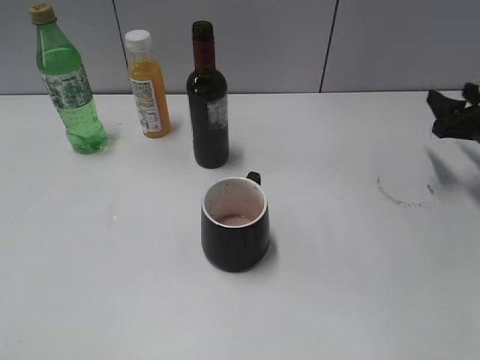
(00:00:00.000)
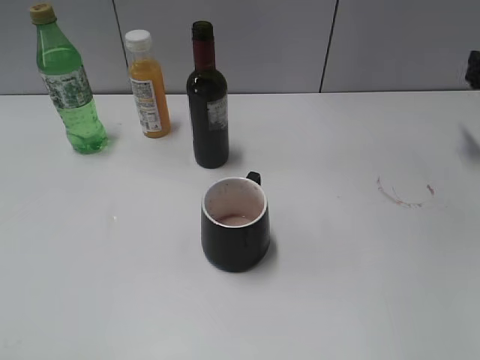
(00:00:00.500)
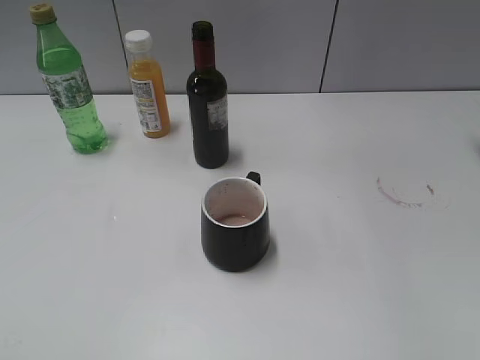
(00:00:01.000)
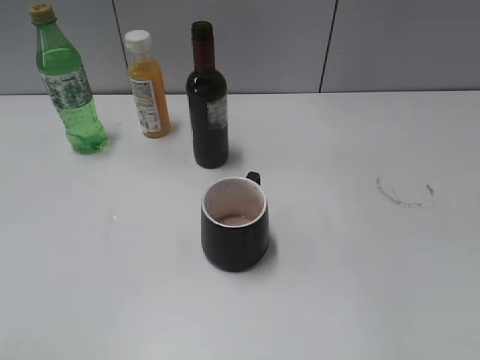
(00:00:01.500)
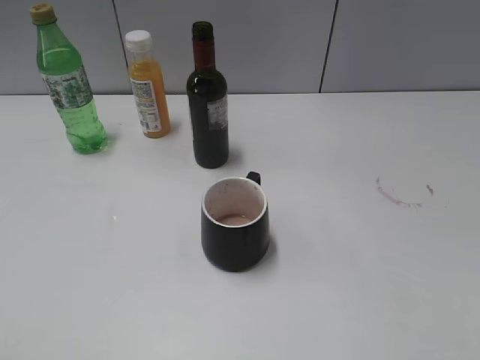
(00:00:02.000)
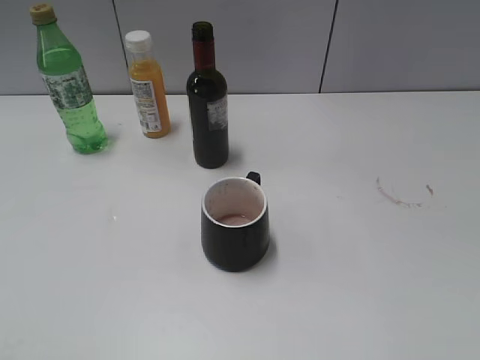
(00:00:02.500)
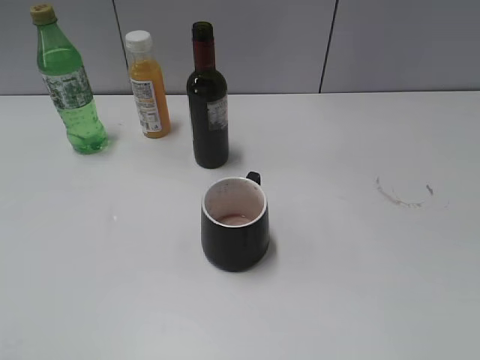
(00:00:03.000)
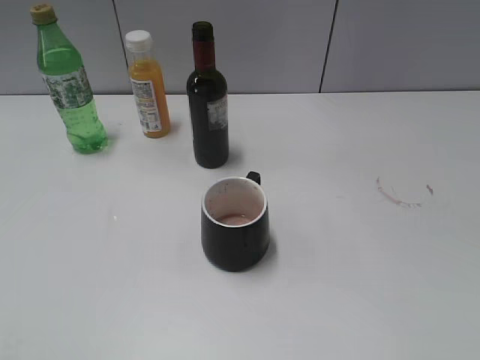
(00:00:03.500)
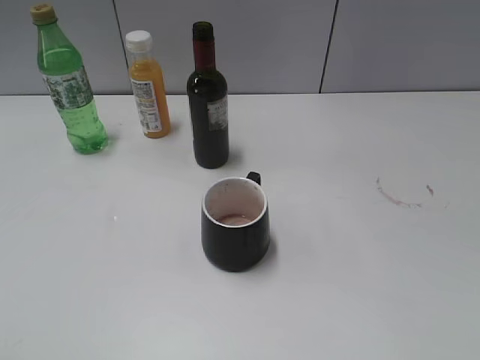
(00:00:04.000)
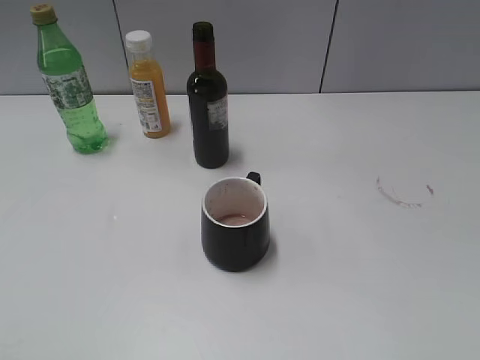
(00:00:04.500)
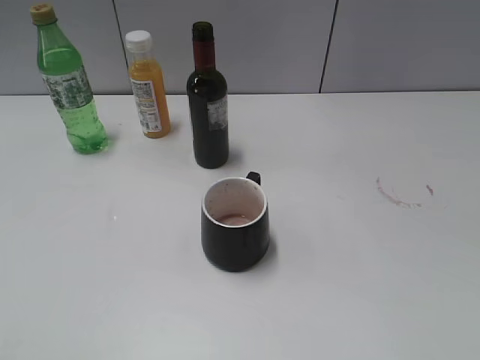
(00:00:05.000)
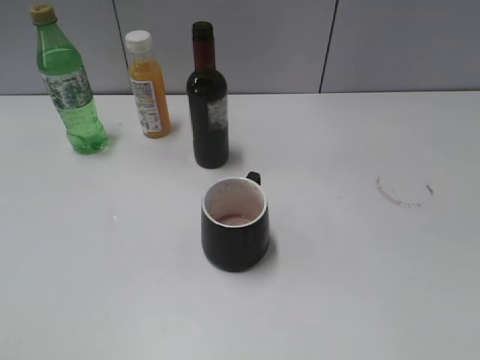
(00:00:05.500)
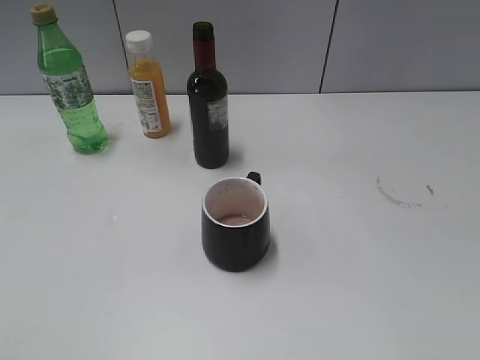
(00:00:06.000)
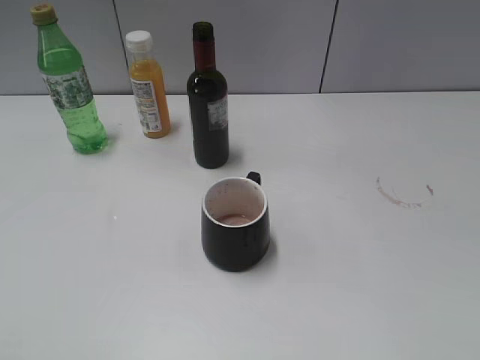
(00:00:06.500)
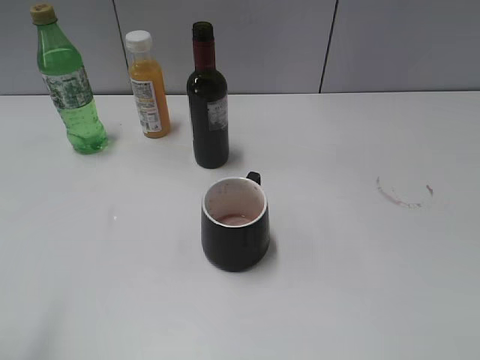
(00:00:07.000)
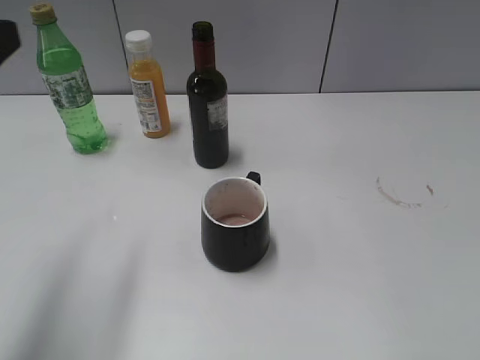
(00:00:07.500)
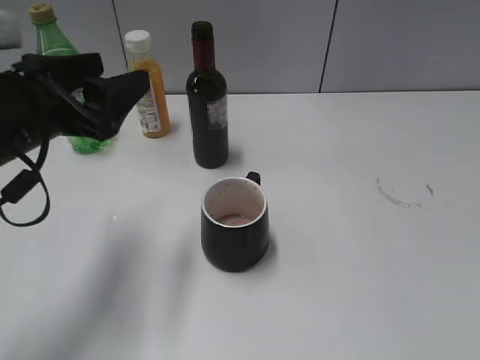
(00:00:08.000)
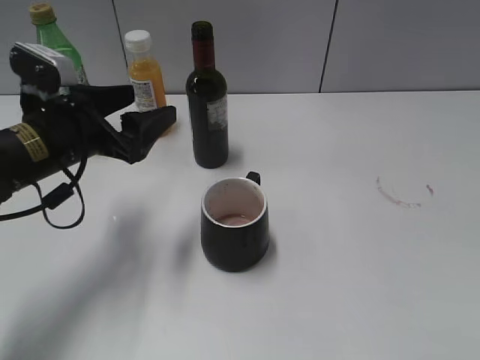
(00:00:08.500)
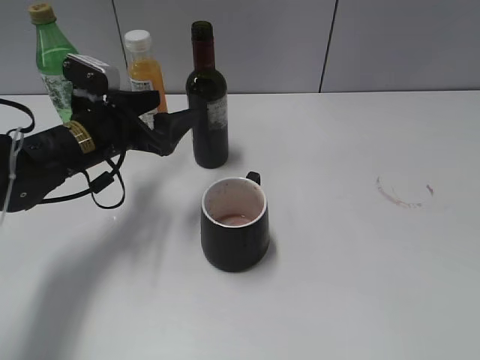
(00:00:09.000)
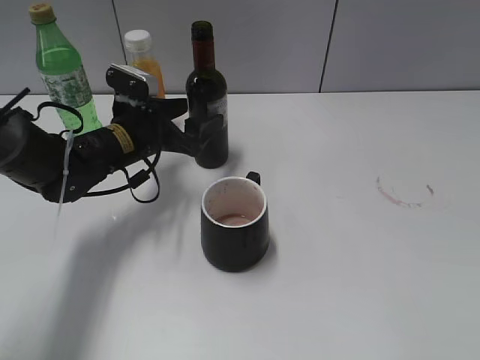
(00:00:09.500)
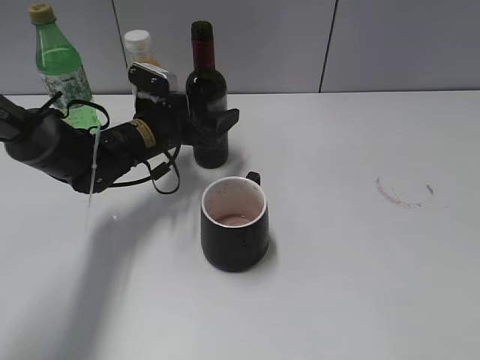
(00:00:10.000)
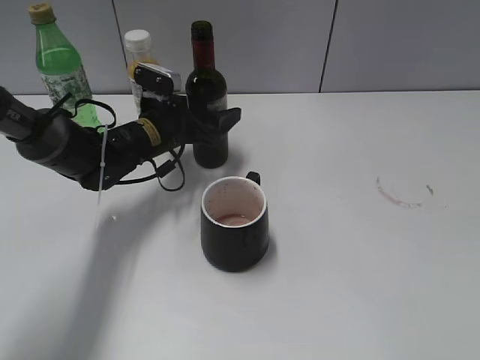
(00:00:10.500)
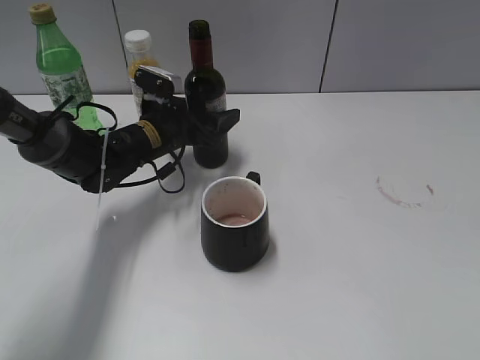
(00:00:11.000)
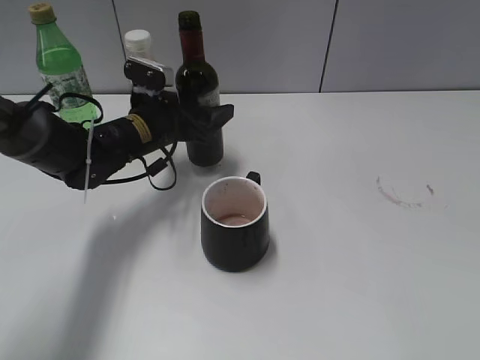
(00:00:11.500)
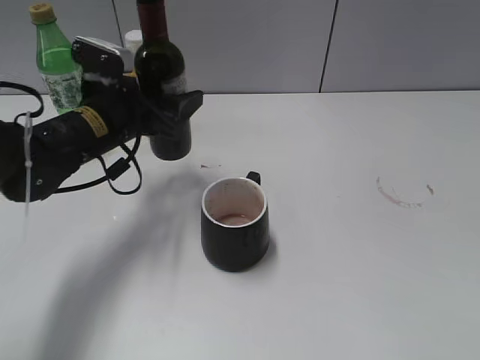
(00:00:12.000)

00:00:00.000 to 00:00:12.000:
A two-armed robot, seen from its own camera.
Step, 00:00:00.000 to 00:00:11.000: Grasp the bottle with red wine with left gripper.
00:00:00.000 to 00:00:02.000: The right gripper moves backward and upward, some 30 cm.
00:00:04.000 to 00:00:06.000: Both grippers stay put.
00:00:06.000 to 00:00:08.000: The left gripper travels forward and to the right by roughly 30 cm, and opens, then closes again.
00:00:08.000 to 00:00:10.000: The left gripper is displaced forward, downward and to the right by roughly 20 cm, and opens its fingers.
00:00:10.000 to 00:00:12.000: The left gripper travels backward and upward by some 10 cm, and closes up.

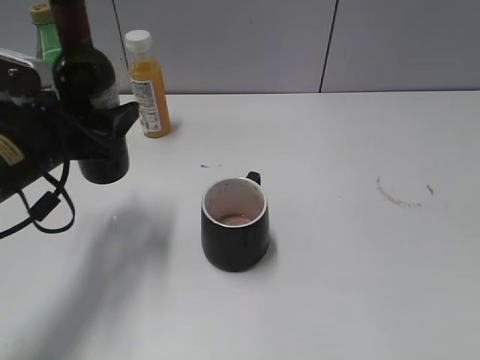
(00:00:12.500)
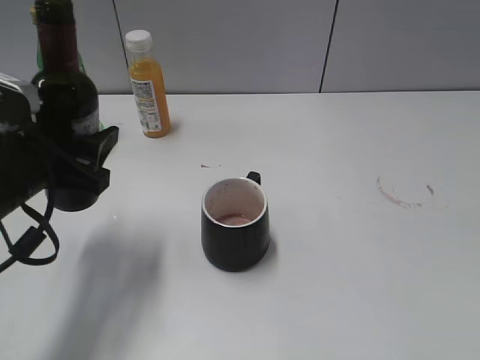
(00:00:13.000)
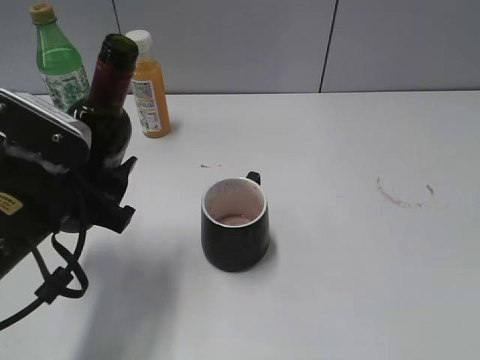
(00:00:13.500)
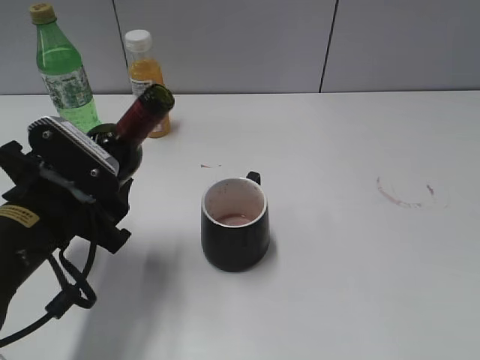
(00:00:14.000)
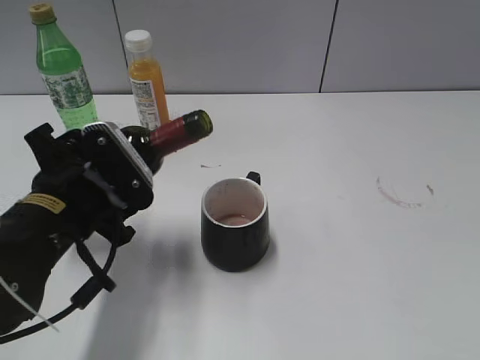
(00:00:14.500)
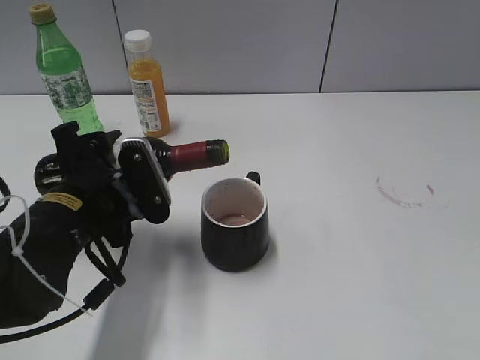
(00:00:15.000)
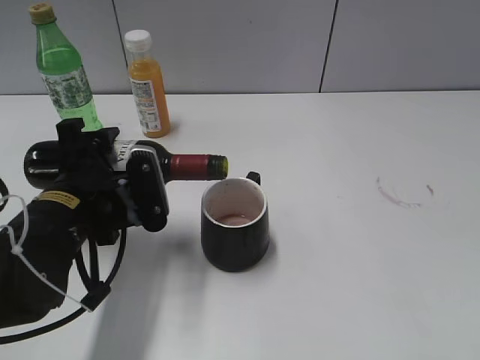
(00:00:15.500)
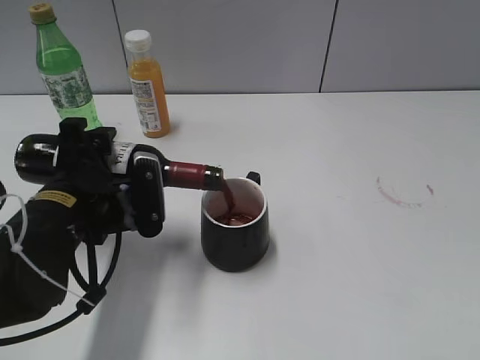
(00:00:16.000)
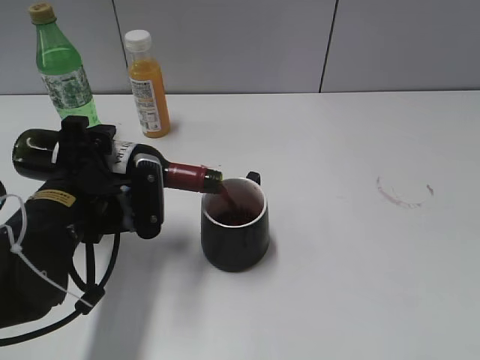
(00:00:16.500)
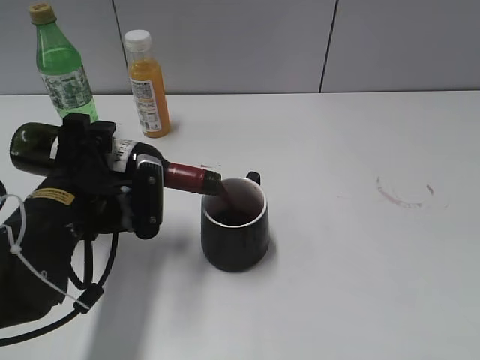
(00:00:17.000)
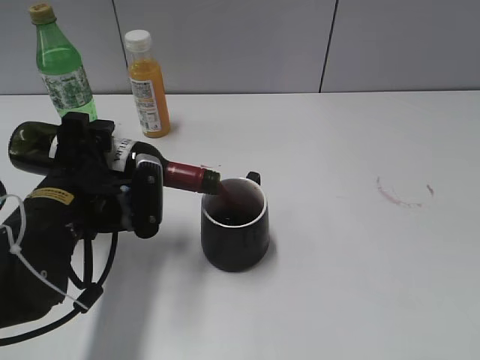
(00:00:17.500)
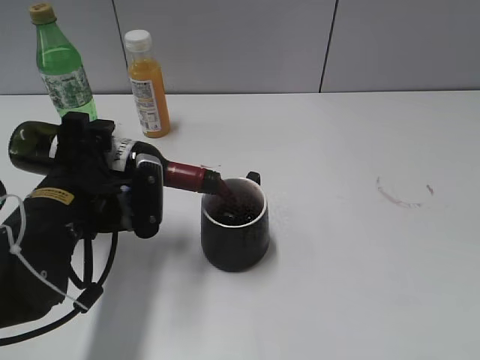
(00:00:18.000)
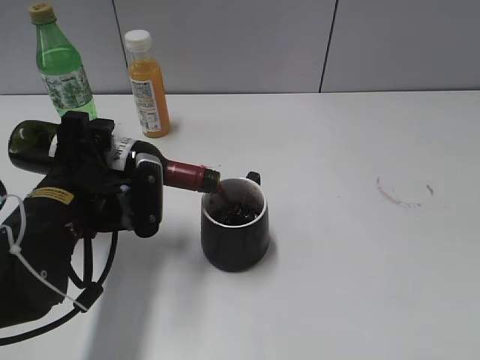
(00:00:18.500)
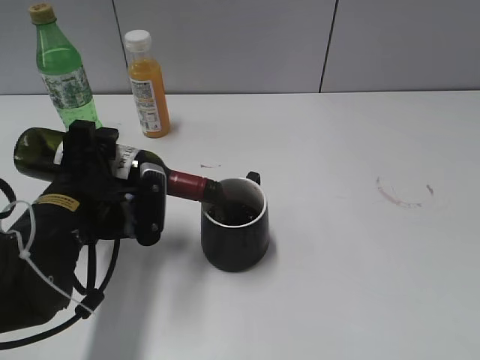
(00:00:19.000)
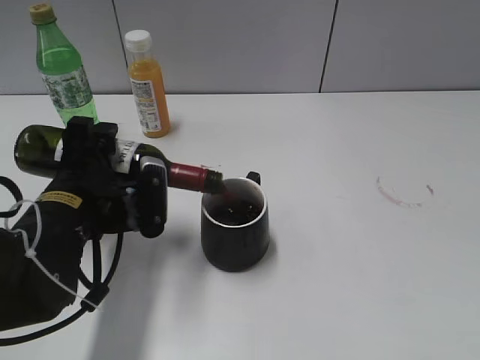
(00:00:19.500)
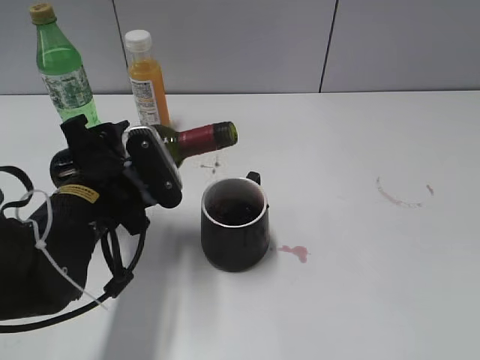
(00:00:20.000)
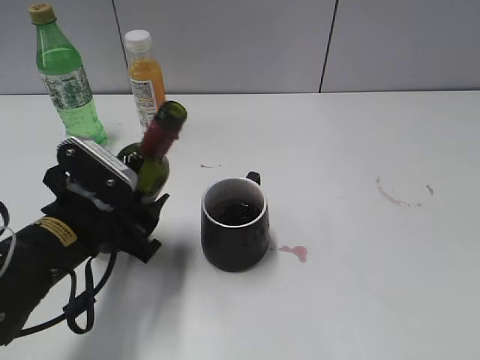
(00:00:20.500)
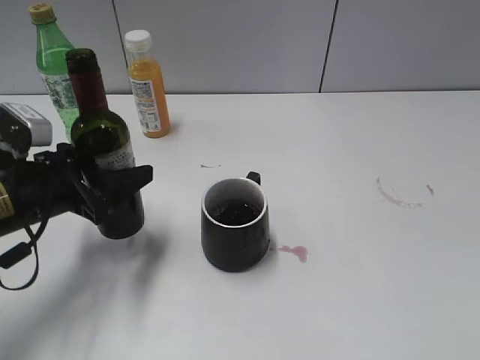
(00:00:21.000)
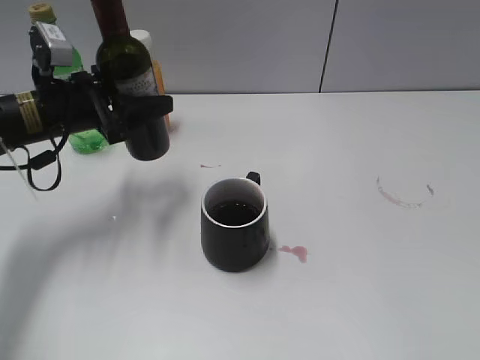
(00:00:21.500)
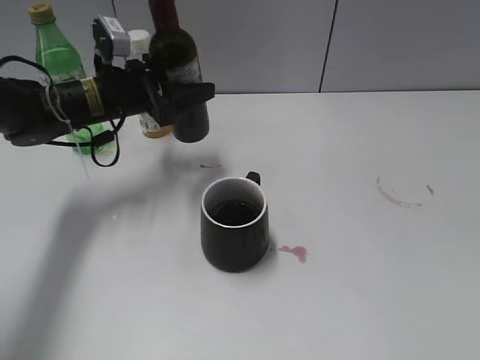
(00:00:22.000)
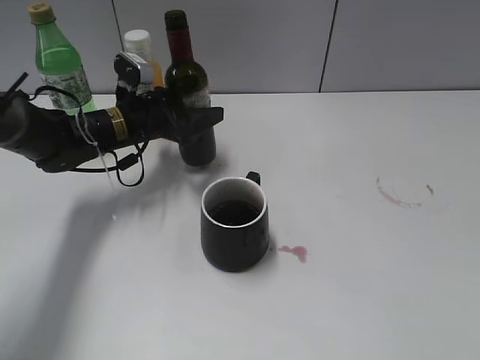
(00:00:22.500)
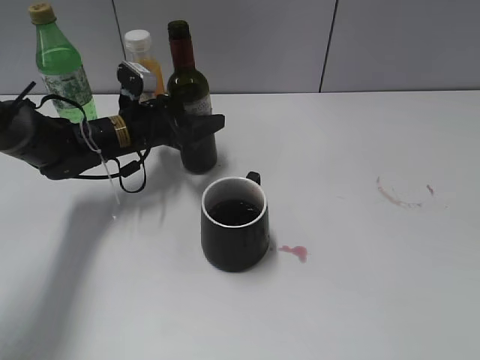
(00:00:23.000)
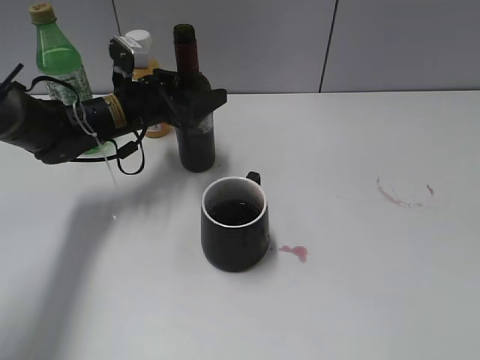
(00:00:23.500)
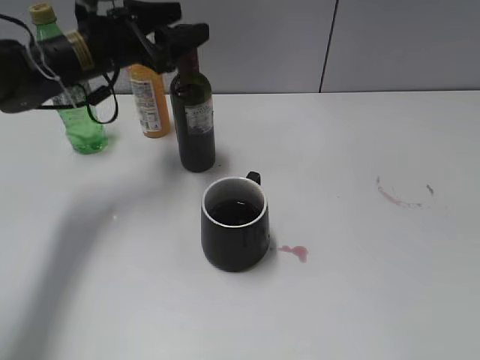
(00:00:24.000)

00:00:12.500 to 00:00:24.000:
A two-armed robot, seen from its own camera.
Step, 00:00:12.500 to 00:00:20.000: Pour the red wine from bottle to cup with left gripper.
Step, 00:00:20.500 to 00:00:23.000: Place the red wine bottle on the table with left gripper.
00:00:12.500 to 00:00:14.500: The left gripper ends up about 10 cm from where it was.
00:00:16.500 to 00:00:18.500: The two grippers keep their place.
00:00:20.000 to 00:00:22.000: The left gripper travels forward by about 20 cm.
00:00:22.000 to 00:00:24.000: The left gripper heads upward, covering roughly 5 cm, and opens its fingers.

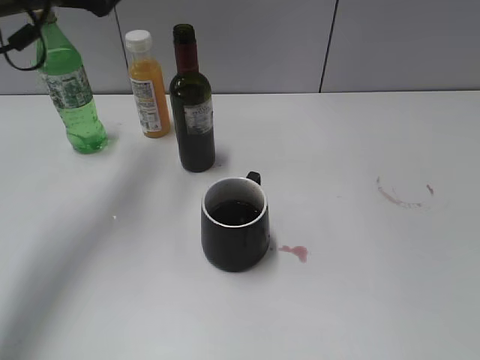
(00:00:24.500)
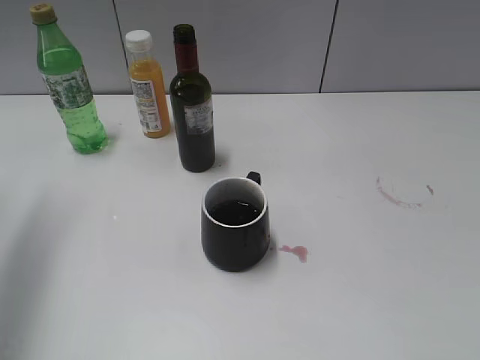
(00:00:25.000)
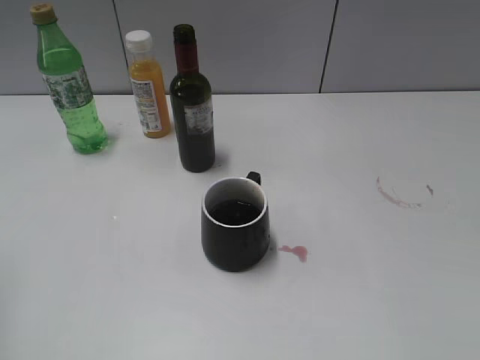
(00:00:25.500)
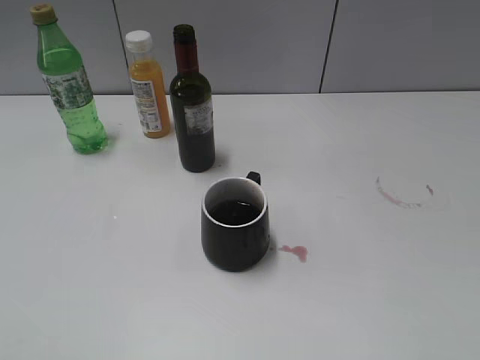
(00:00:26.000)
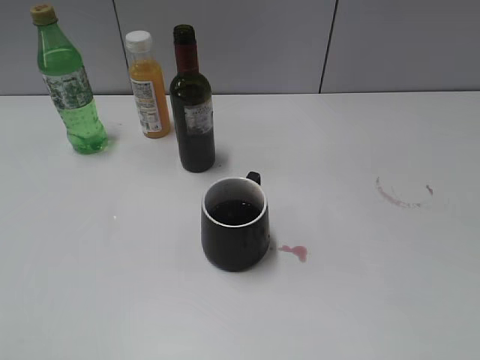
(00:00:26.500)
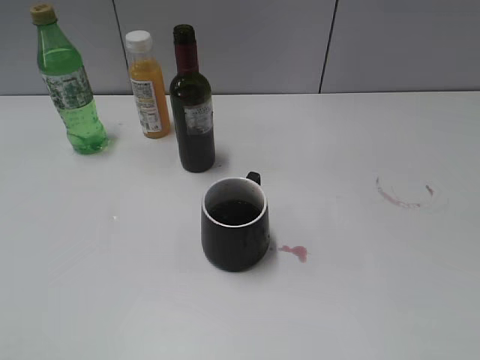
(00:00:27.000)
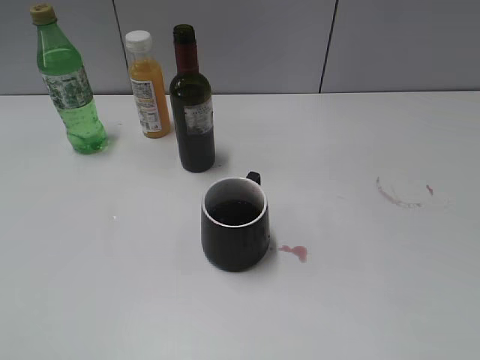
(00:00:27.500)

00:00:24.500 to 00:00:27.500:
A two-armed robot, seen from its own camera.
00:00:24.500 to 00:00:26.000: The left gripper heads backward, covering some 35 cm.
